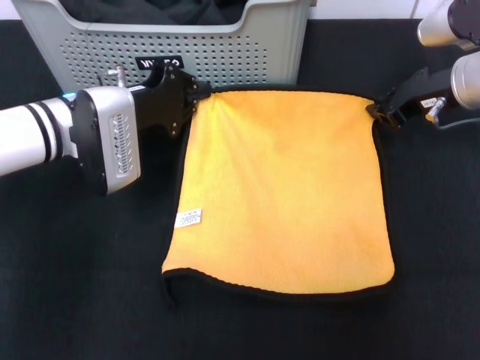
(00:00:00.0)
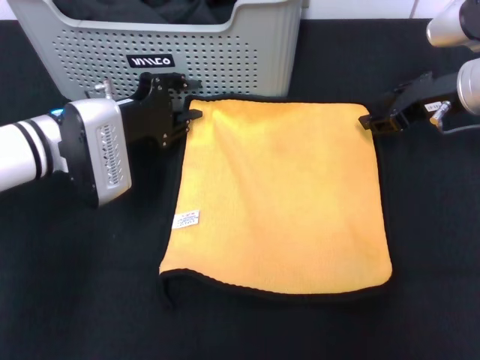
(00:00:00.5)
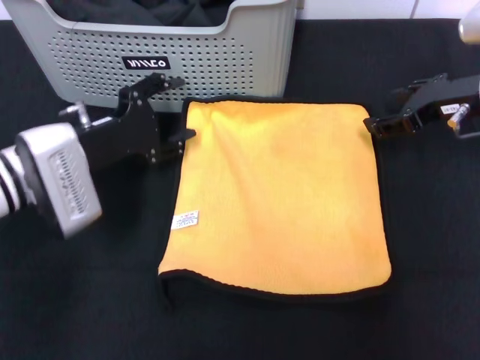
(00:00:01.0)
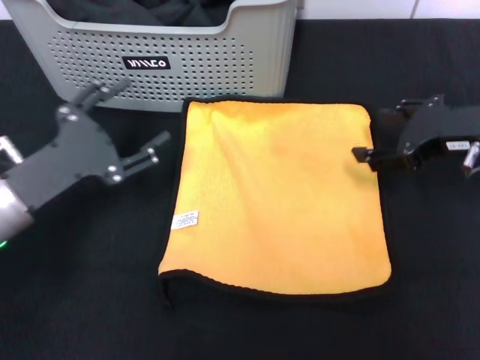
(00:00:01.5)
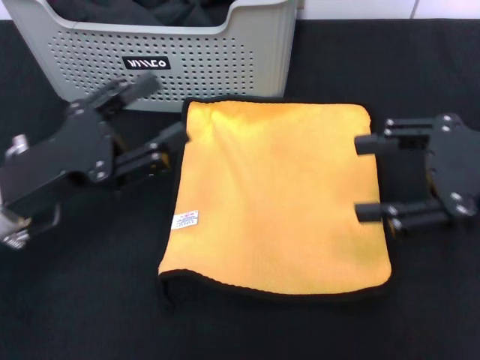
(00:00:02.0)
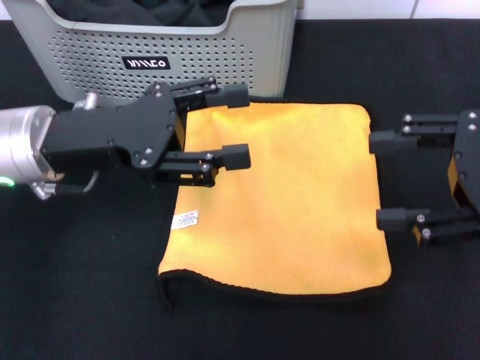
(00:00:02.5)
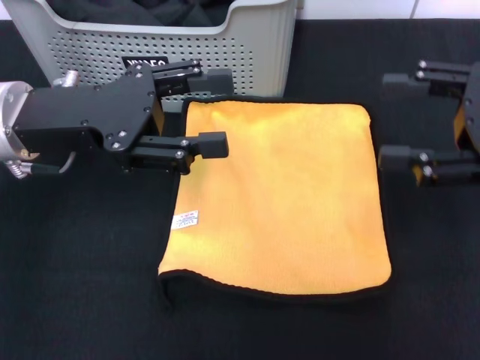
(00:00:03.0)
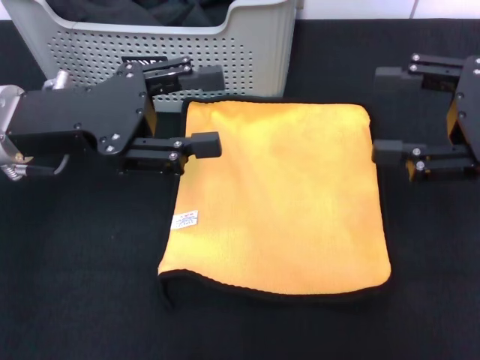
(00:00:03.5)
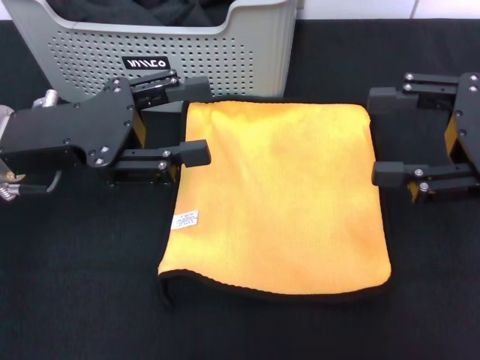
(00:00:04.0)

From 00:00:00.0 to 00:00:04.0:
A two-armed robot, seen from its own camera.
Task of the whole recording: pick up the towel from the storage box and lay it flat on the black tablecloth.
From 00:00:00.0 to 00:00:02.0: The left gripper is displaced backward by approximately 10 cm, and opens. Meanwhile the right gripper travels backward and upward by about 15 cm, and opens.
From 00:00:02.0 to 00:00:04.0: The left gripper changes place by roughly 5 cm.
